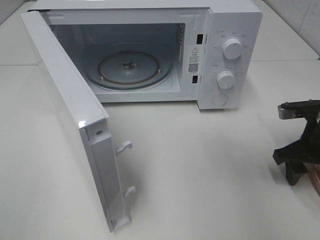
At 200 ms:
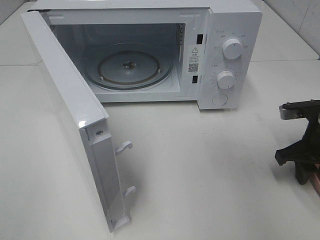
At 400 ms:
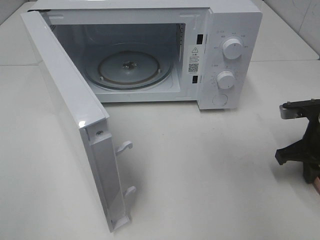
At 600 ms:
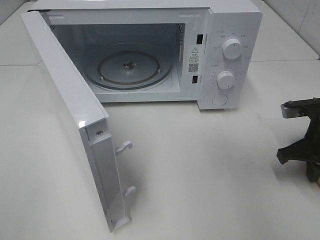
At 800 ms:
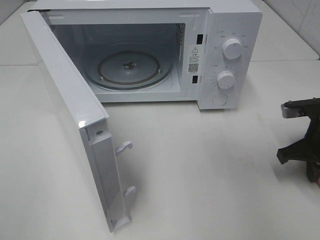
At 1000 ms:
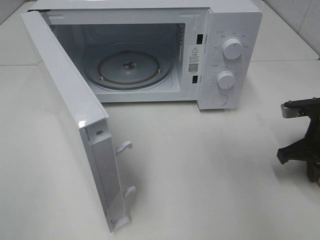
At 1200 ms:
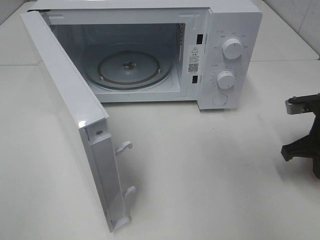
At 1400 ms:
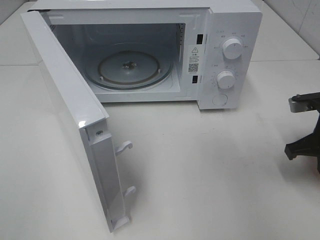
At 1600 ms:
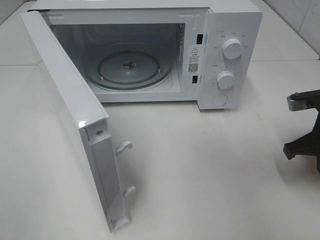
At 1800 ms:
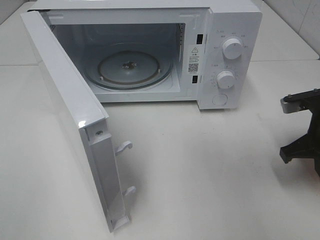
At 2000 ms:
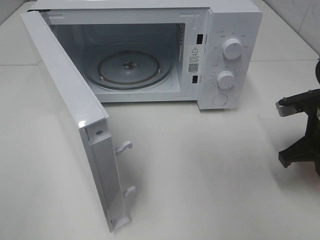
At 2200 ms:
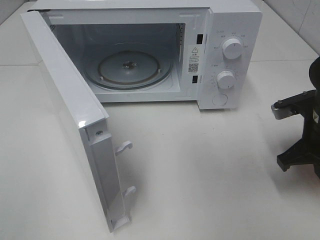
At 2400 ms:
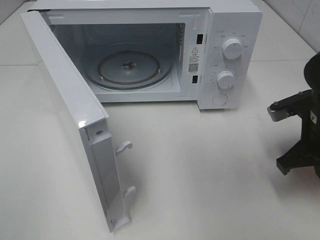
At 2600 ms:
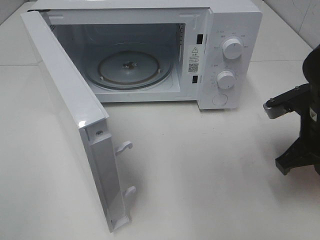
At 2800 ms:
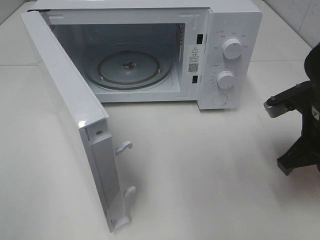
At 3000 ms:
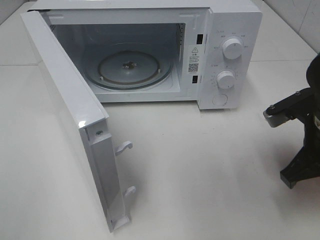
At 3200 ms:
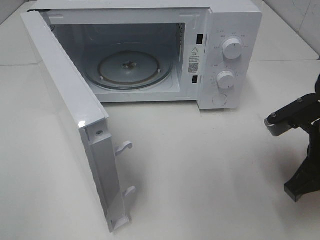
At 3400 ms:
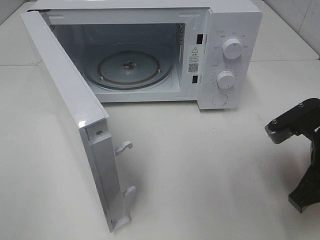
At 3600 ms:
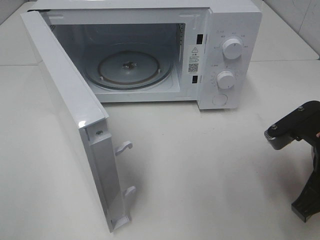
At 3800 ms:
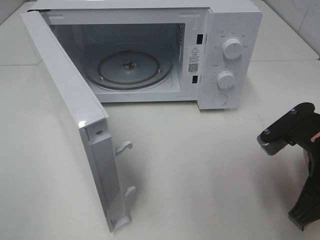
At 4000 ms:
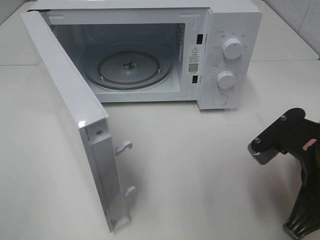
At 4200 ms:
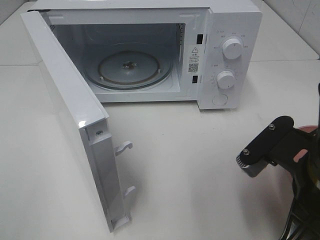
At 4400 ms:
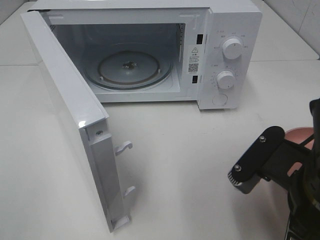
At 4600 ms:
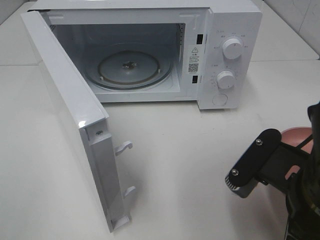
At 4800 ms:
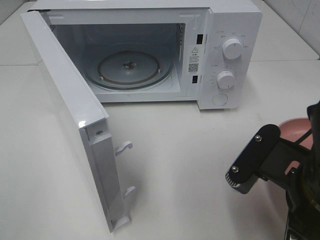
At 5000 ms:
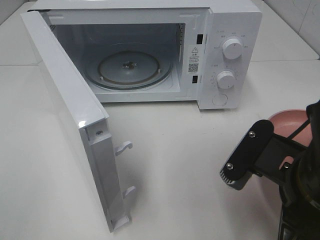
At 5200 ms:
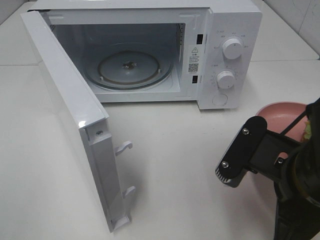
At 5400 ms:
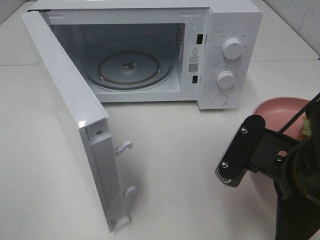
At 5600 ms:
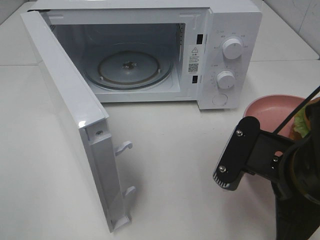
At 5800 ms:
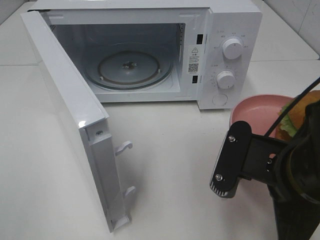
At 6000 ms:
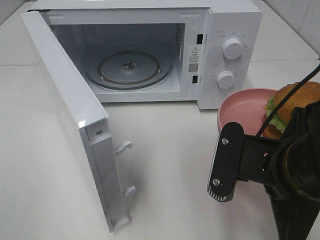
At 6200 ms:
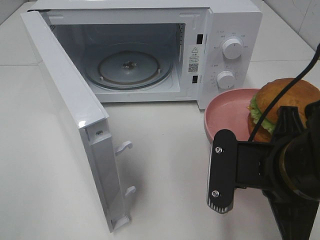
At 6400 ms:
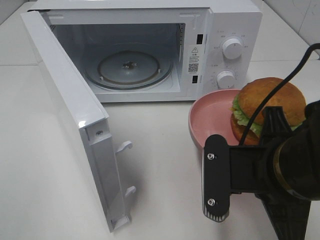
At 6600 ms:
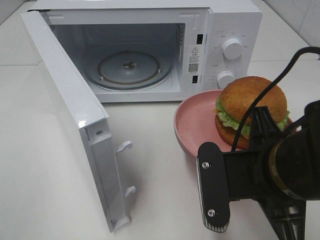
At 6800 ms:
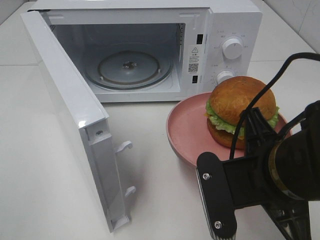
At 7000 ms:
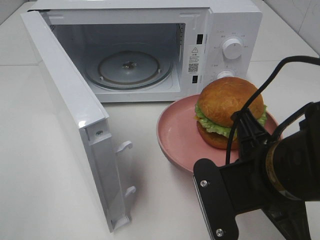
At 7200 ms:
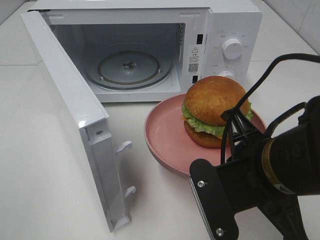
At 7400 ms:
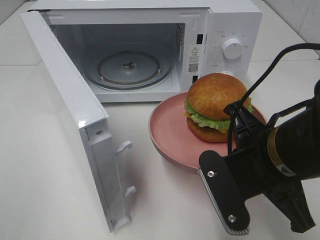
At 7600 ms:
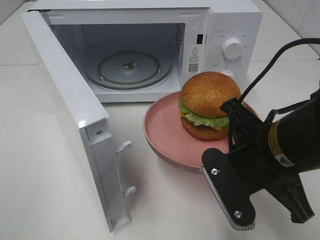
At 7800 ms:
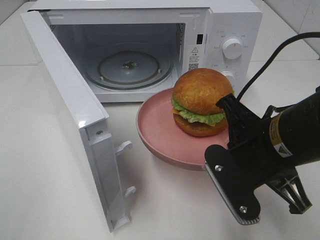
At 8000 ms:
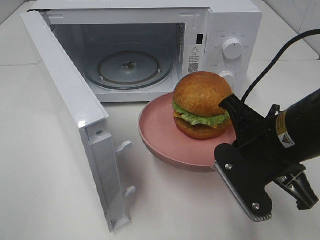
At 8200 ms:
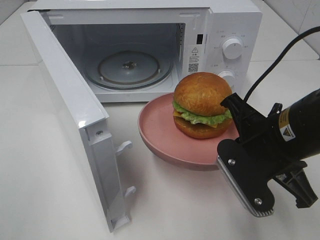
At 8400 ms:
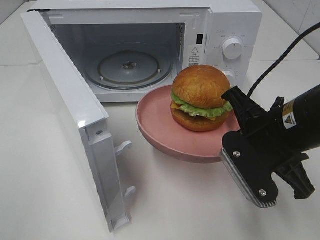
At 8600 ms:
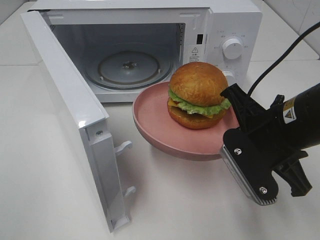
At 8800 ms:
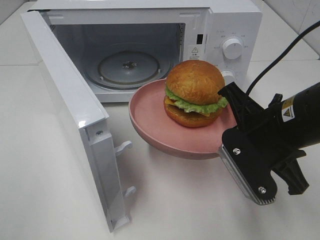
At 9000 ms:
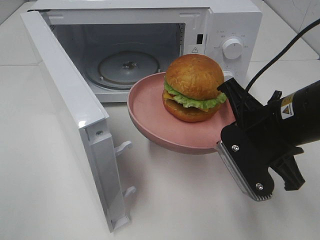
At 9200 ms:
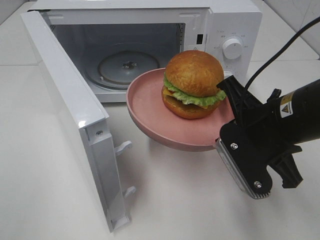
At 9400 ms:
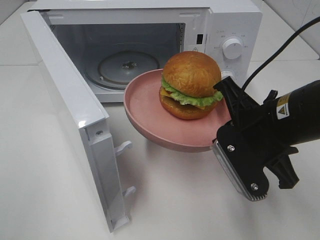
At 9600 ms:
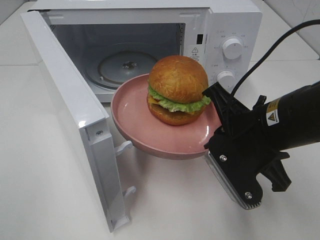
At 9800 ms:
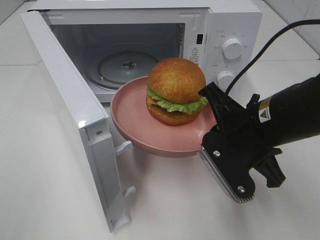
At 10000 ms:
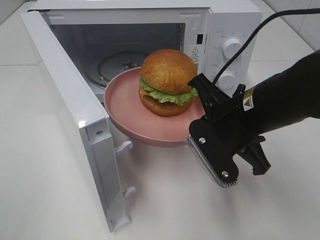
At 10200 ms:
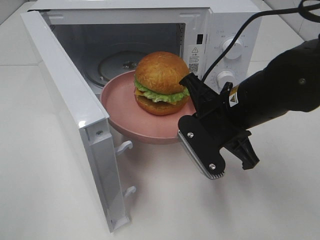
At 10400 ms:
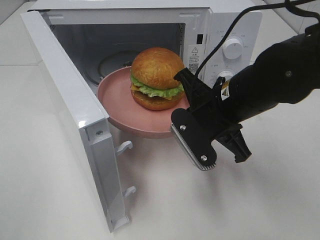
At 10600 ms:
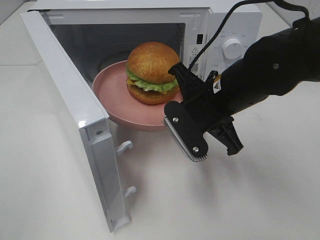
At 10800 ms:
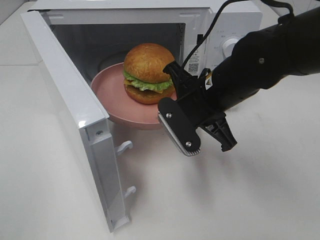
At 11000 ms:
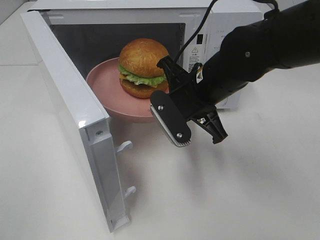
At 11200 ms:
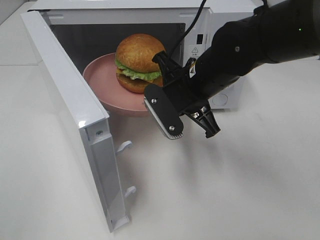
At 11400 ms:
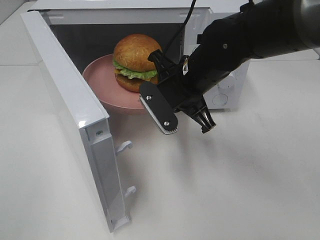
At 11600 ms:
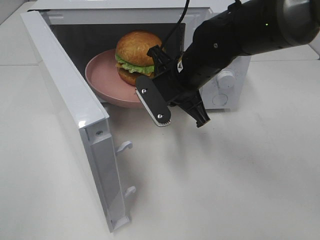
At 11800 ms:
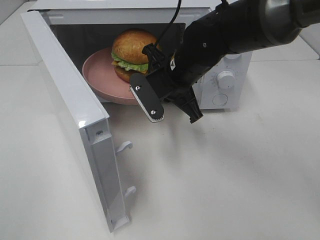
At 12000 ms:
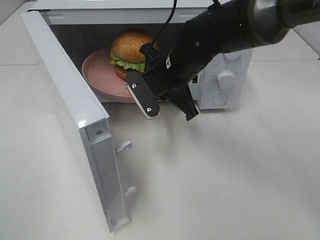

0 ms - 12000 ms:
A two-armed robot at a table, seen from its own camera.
Task of the whole recording: Heat the burger.
0 ms - 1600 ms: The right gripper closes its fingers.
1600 ms - 3000 ms: The right gripper goes about 5 cm to the left.
3000 ms - 4400 ms: The right gripper shifts approximately 15 cm backward and to the left.
7600 ms - 9000 ms: The grippers move only a little.
9000 ms - 10400 ms: The right gripper moves to the left, some 5 cm.
10400 ms - 12000 ms: The right gripper heads forward and to the left, covering approximately 10 cm.

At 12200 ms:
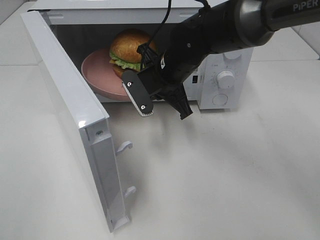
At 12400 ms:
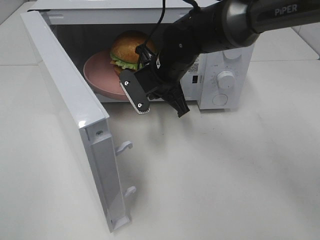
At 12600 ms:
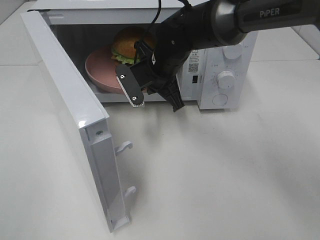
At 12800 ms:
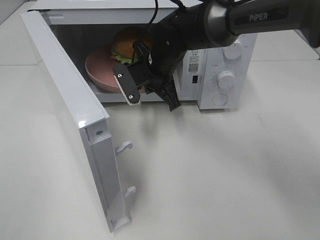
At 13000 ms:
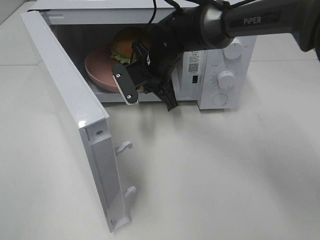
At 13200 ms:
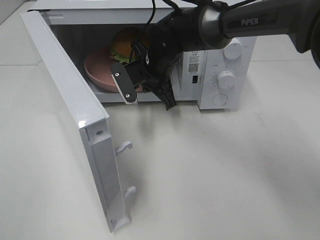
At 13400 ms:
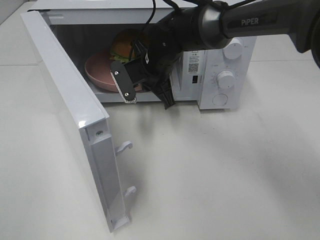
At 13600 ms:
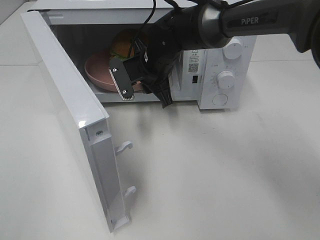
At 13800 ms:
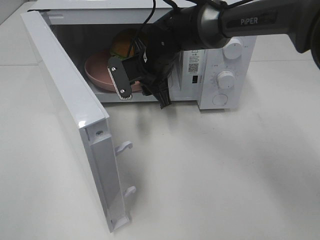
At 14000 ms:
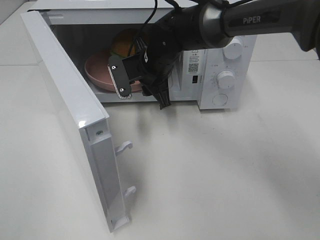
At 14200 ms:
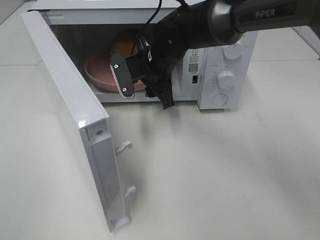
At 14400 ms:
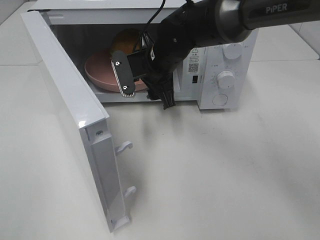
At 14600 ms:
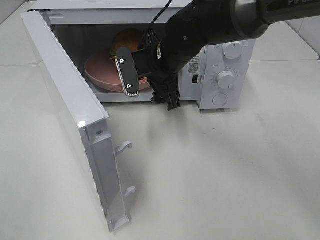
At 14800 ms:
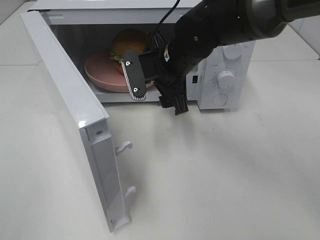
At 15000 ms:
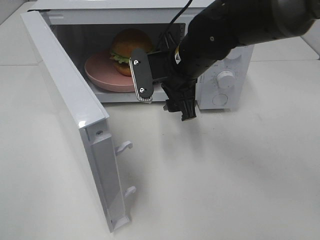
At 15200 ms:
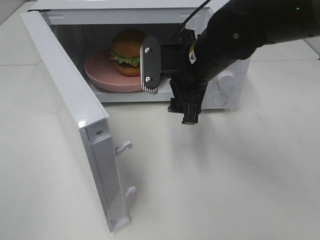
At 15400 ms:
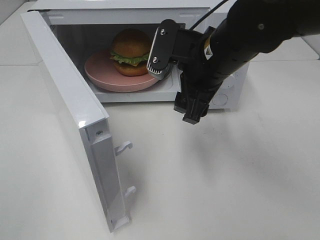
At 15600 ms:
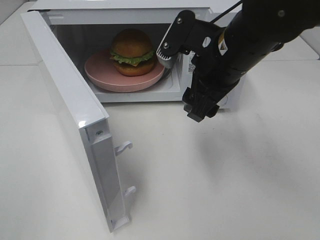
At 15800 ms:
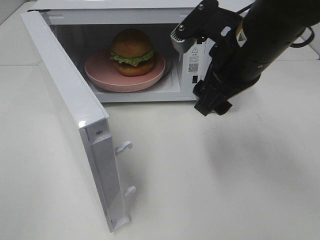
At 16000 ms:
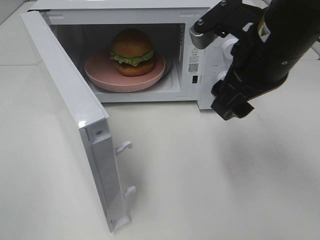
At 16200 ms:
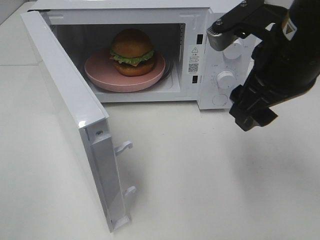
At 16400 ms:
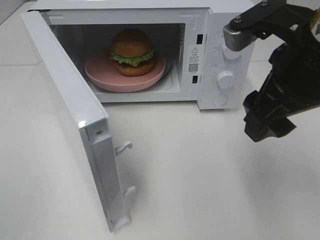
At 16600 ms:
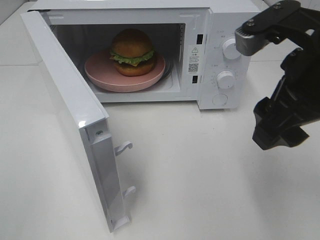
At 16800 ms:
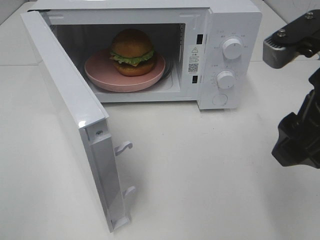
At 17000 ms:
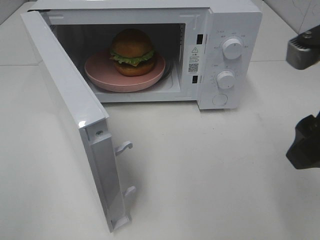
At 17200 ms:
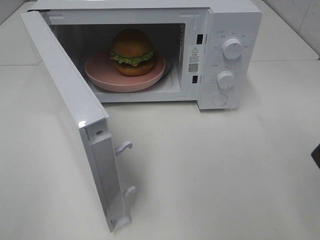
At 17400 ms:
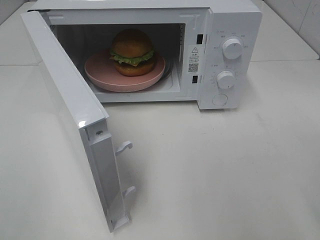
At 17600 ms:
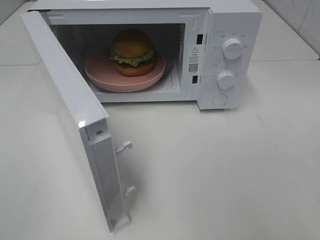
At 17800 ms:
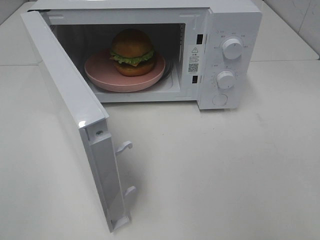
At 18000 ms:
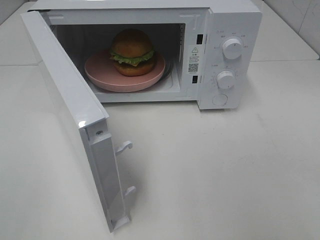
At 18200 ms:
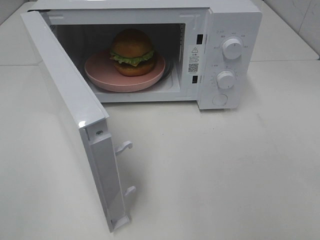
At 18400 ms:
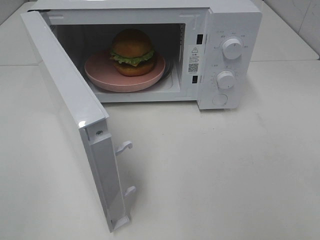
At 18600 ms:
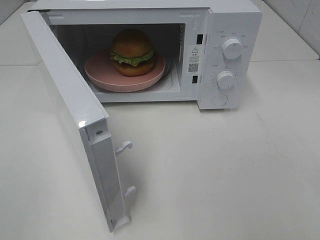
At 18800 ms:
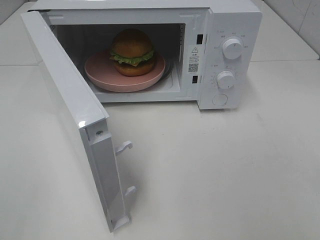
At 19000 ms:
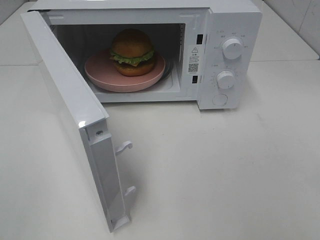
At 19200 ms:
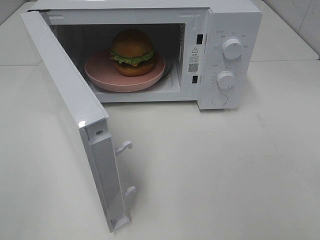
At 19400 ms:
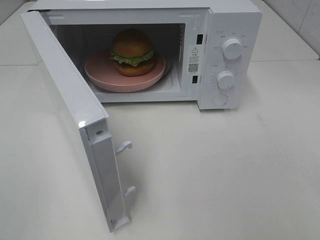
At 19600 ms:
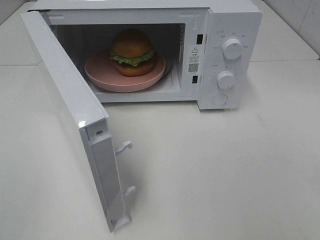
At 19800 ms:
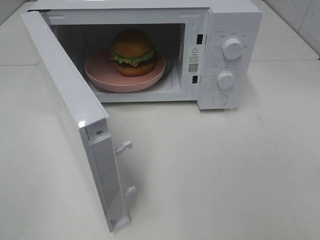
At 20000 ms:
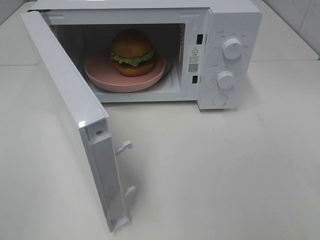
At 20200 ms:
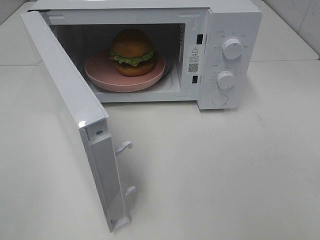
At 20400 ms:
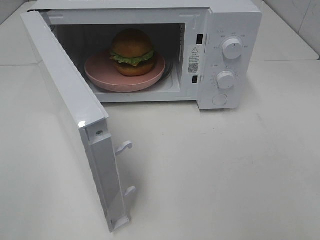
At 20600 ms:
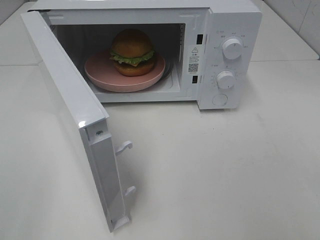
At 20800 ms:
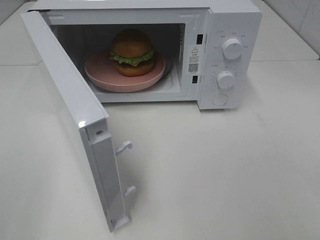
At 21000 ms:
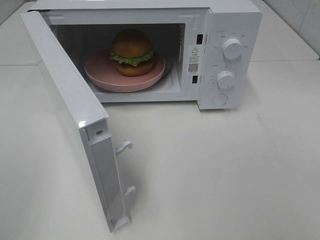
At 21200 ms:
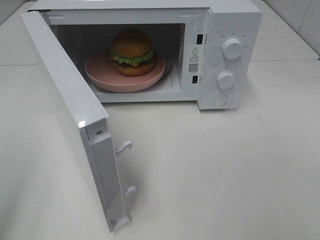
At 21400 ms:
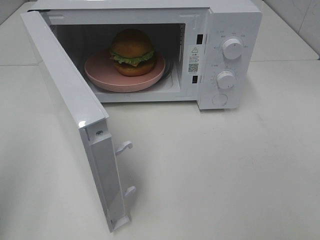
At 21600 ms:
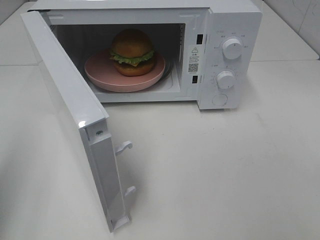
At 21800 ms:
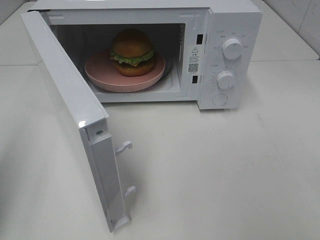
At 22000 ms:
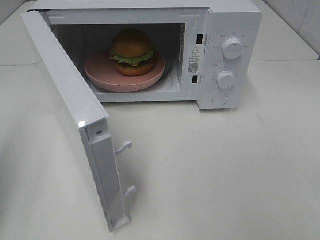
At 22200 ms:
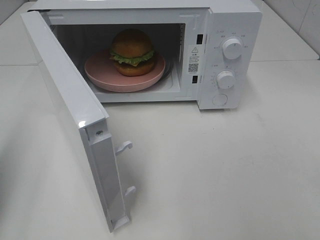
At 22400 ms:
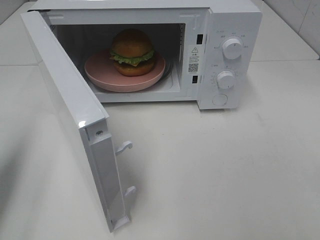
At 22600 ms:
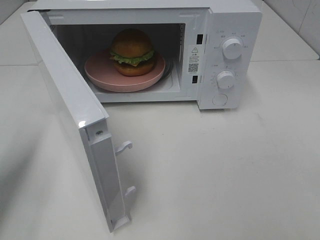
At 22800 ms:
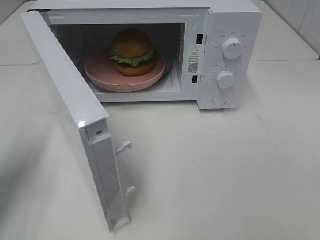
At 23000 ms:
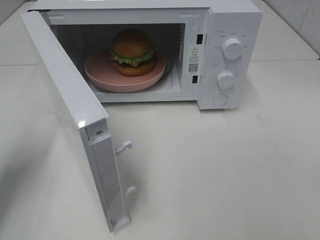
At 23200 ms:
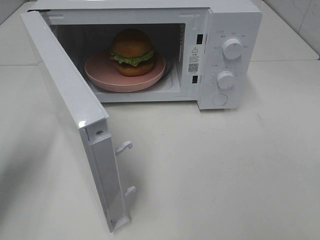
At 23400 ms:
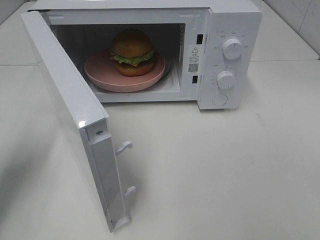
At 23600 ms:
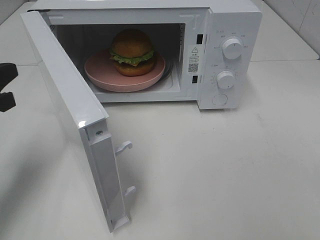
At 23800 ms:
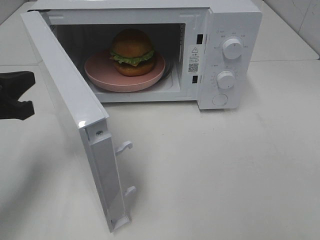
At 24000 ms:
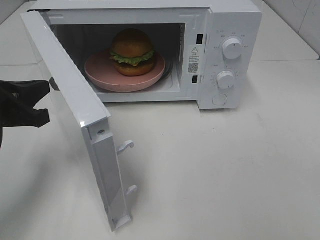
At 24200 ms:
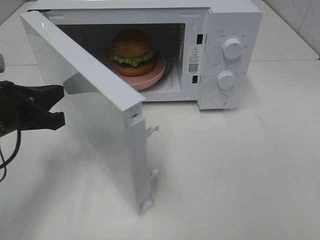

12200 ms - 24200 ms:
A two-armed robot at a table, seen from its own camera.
Task of the whole recording: Heat the burger.
12200 ms - 13800 ms: The right gripper changes place by approximately 5 cm, and opens its fingers.
13800 ms - 15200 ms: The right gripper travels backward, to the right and upward by some 15 cm.
15200 ms - 16600 ms: The right gripper goes about 20 cm backward, to the right and upward.
16600 ms - 18200 ms: The right gripper shifts roughly 20 cm backward and to the right.
21200 ms - 22600 ms: The left gripper travels forward and downward by about 15 cm, and closes.
22600 ms - 24200 ms: The left gripper is displaced to the right and downward by some 10 cm.
